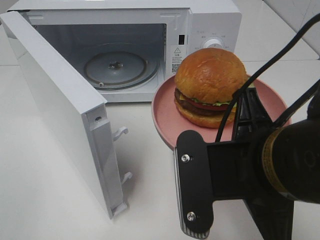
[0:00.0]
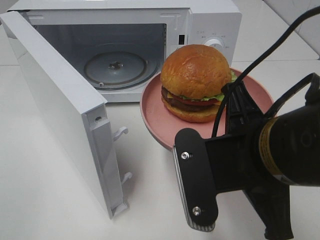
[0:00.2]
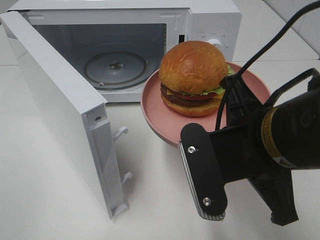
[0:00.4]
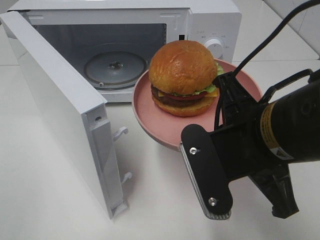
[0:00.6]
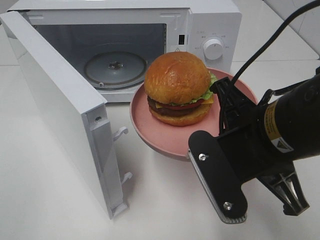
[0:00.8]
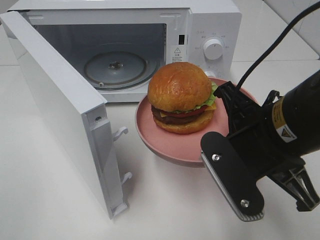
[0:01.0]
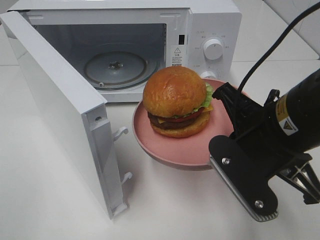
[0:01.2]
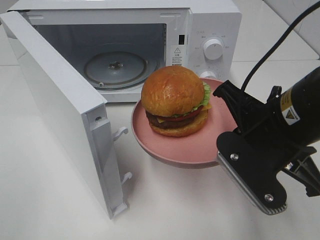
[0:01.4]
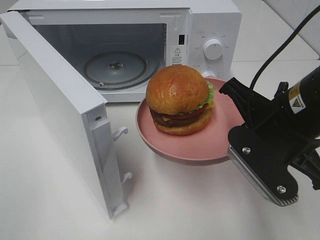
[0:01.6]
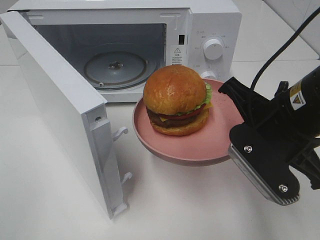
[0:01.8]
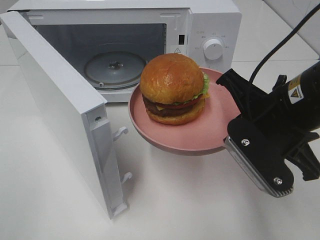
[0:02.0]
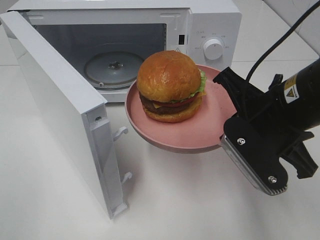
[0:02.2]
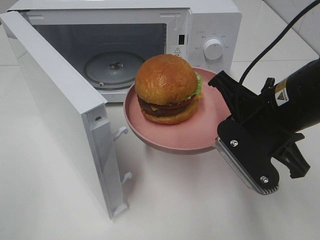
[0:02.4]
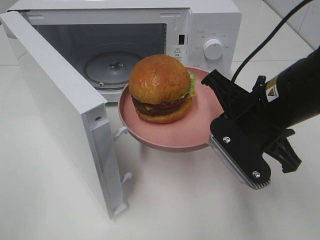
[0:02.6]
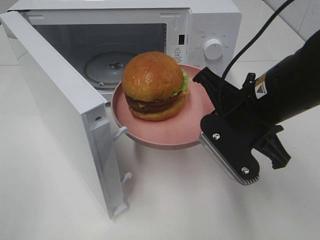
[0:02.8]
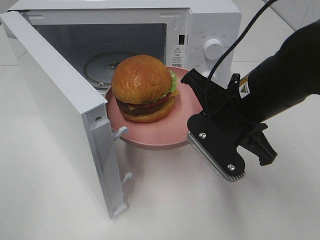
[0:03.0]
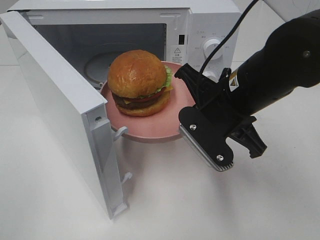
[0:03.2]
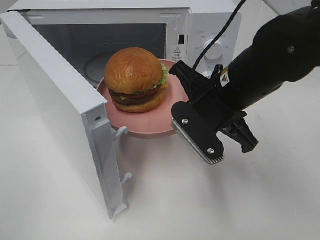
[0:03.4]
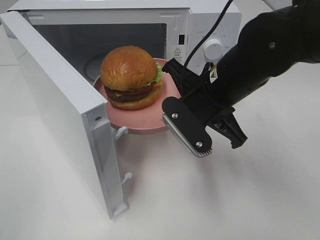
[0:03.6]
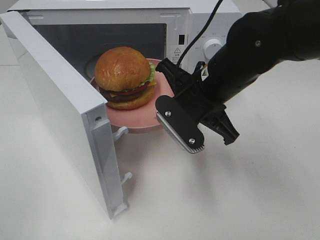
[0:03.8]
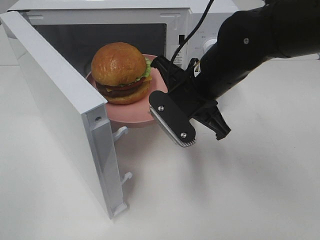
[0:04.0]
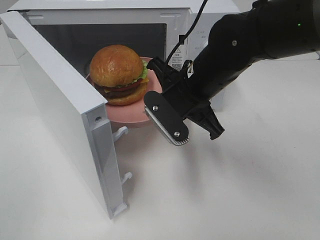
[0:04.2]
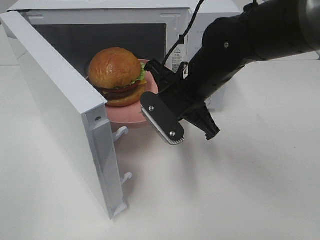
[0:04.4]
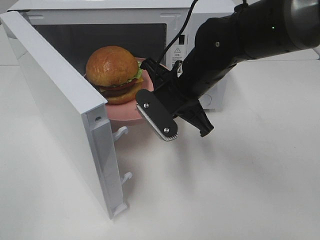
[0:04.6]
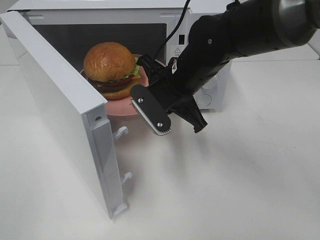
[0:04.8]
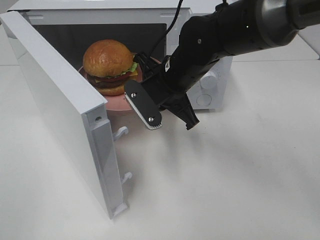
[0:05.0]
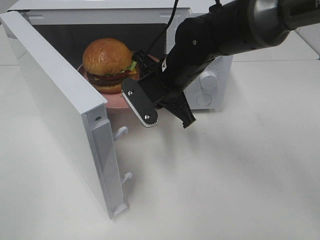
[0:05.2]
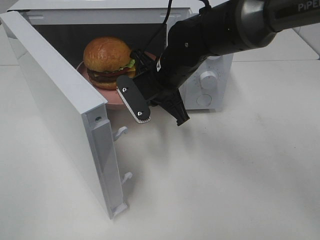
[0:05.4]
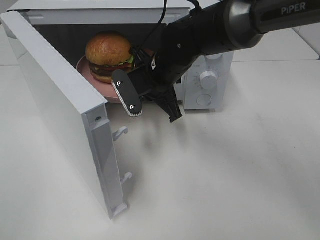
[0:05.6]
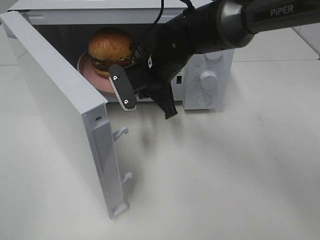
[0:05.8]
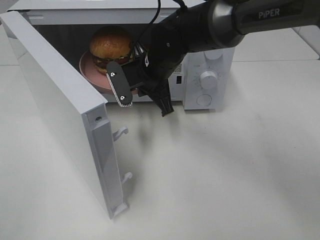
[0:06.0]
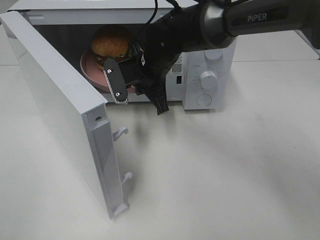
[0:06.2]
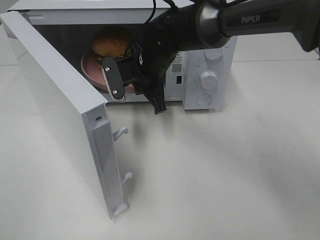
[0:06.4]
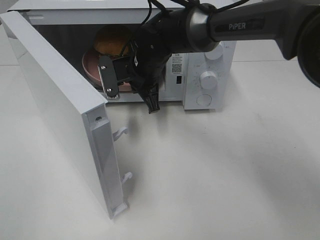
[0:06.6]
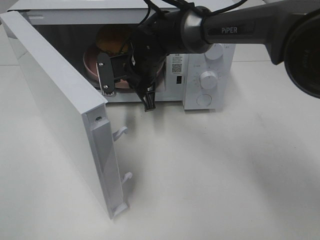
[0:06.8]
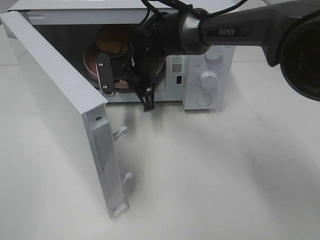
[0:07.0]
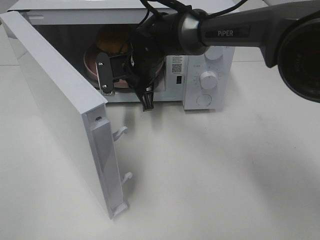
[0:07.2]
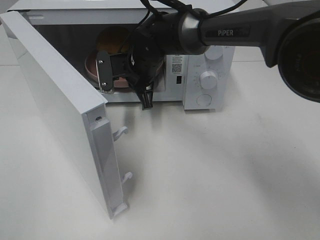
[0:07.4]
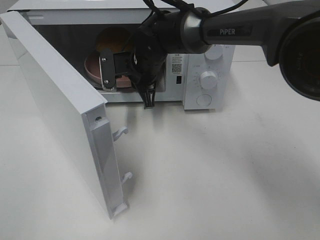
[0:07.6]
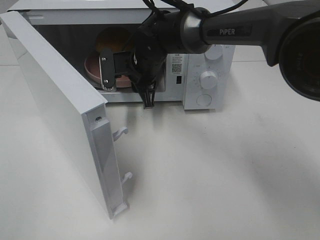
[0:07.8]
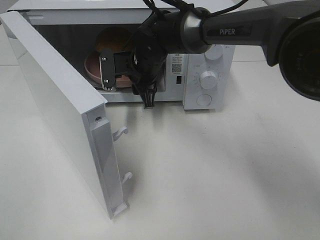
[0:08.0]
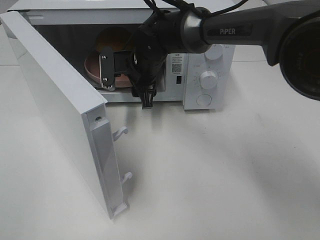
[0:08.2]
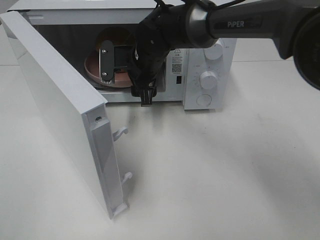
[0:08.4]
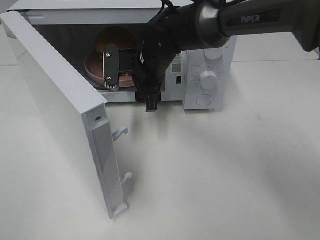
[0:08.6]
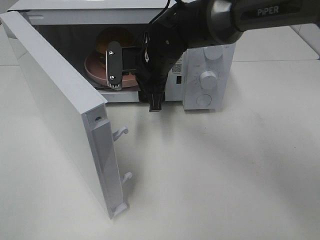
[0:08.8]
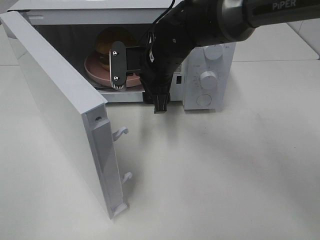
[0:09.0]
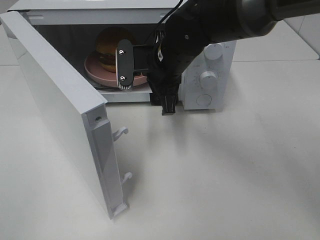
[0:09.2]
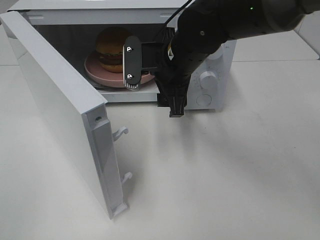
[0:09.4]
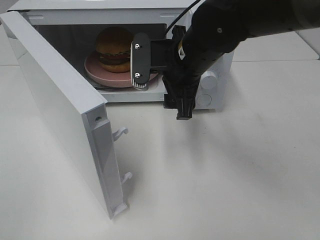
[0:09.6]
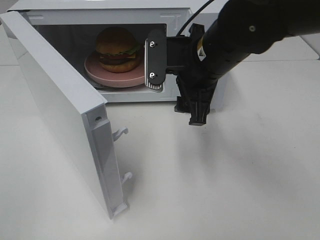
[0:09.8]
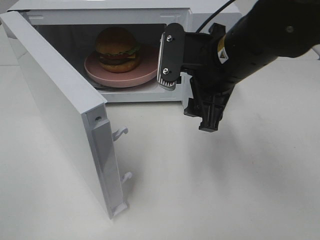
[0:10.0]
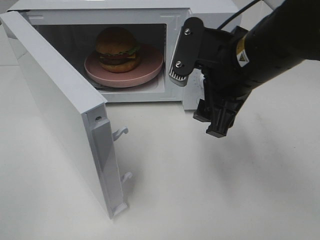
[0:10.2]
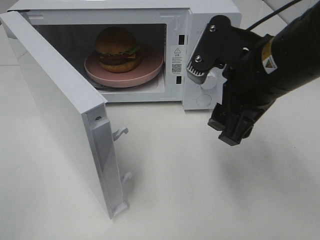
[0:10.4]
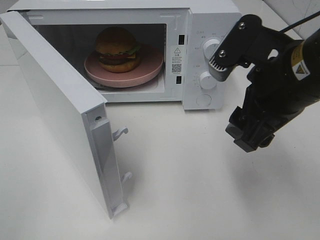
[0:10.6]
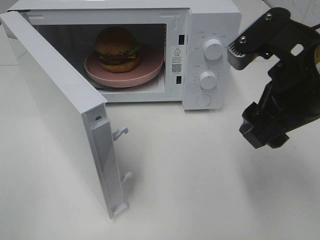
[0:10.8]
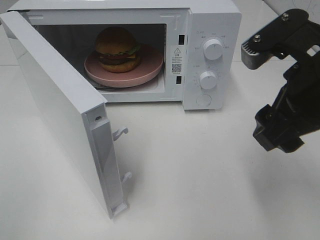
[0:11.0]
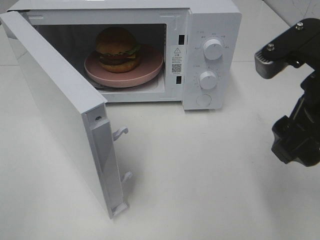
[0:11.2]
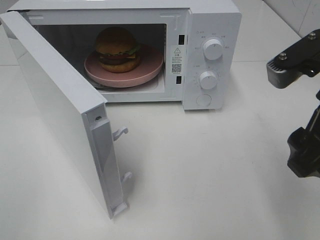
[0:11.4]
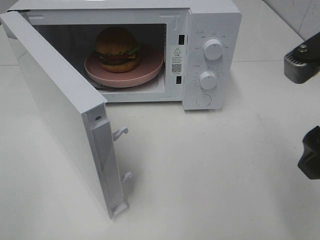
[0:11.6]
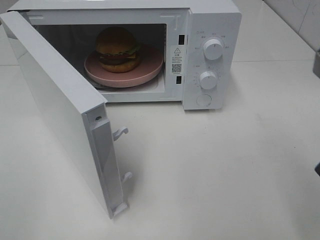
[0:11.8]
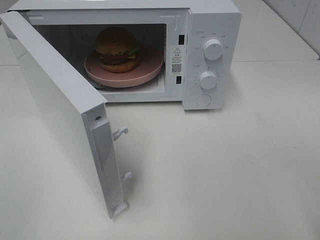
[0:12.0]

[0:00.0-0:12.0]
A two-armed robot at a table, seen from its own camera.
Task of the whole recording: Heat the burger.
Step, 0:00.0 to 0:08.4: Right hand: place the plate in the microwave.
0:00.0 to 0:01.6: The right gripper goes some 10 cm forward and to the right.
0:01.6 to 0:03.0: The right gripper shifts by roughly 5 cm.
0:03.0 to 0:04.4: The right gripper moves forward and to the left, some 10 cm.
0:04.4 to 0:06.0: The right gripper goes some 10 cm forward and to the left.
0:06.0 to 0:07.6: The grippers move only a little.
0:07.6 to 0:09.0: The right gripper ends up roughly 5 cm from where it was, and opens up.
0:09.0 to 0:10.4: The right gripper shifts about 20 cm backward, to the right and upward.
0:10.4 to 0:12.0: The right gripper travels backward and to the right by about 15 cm.

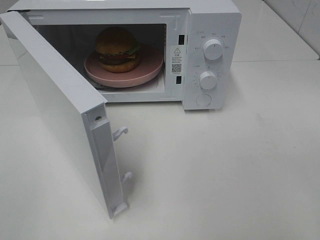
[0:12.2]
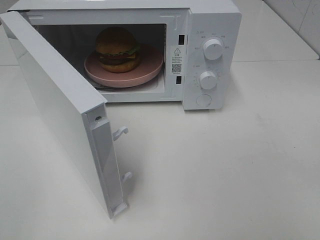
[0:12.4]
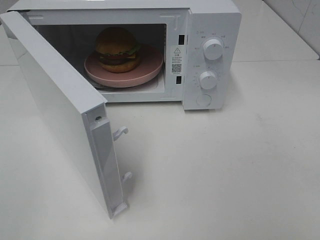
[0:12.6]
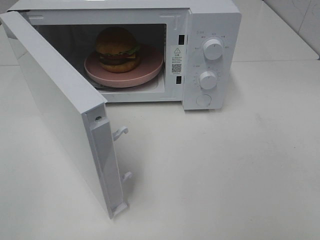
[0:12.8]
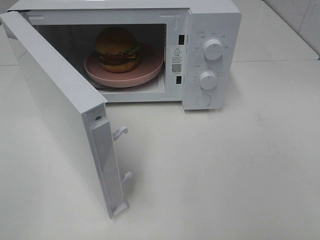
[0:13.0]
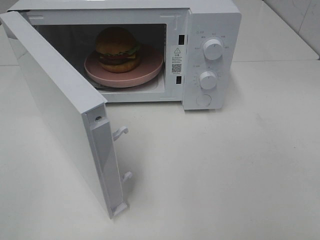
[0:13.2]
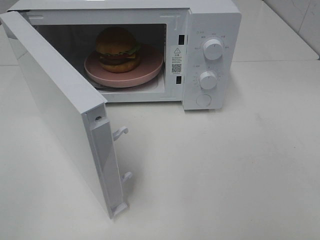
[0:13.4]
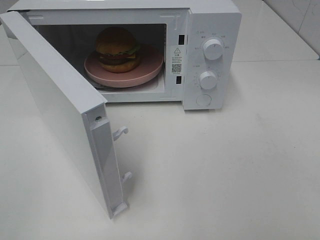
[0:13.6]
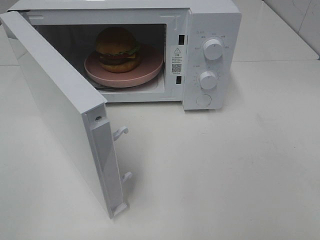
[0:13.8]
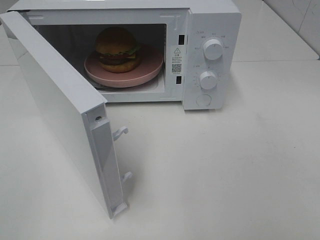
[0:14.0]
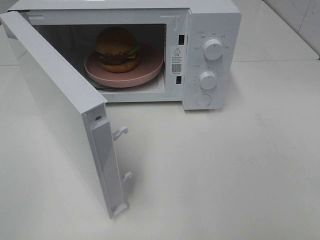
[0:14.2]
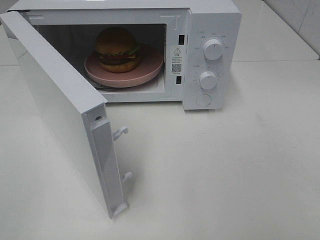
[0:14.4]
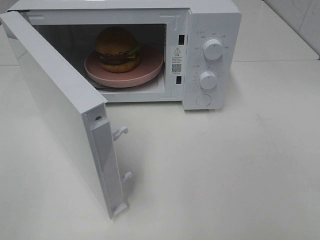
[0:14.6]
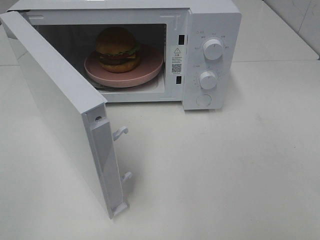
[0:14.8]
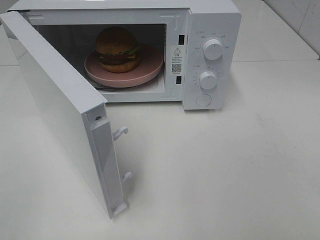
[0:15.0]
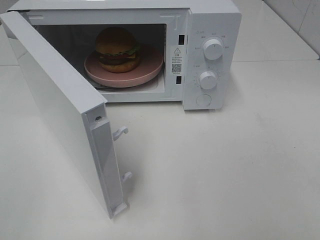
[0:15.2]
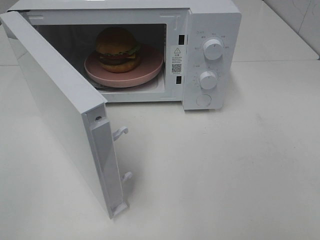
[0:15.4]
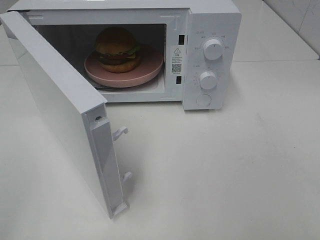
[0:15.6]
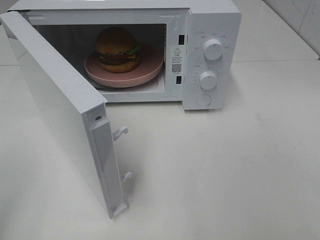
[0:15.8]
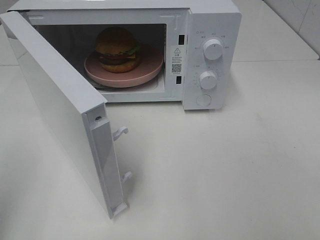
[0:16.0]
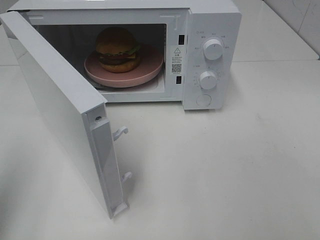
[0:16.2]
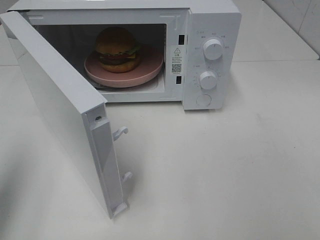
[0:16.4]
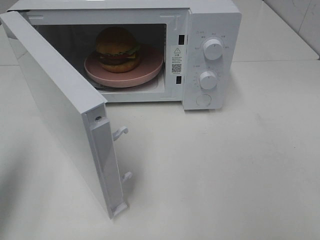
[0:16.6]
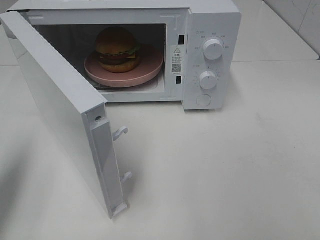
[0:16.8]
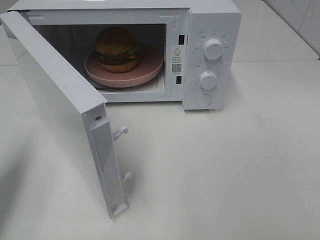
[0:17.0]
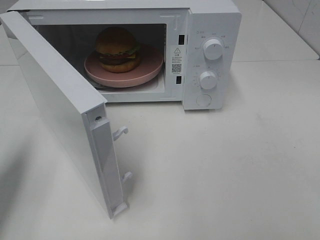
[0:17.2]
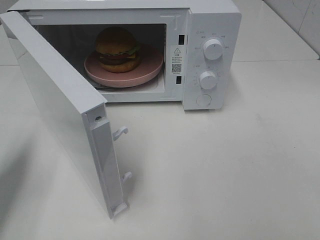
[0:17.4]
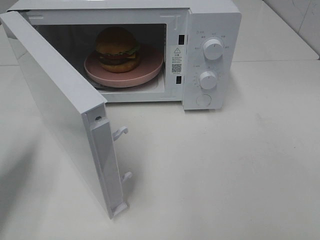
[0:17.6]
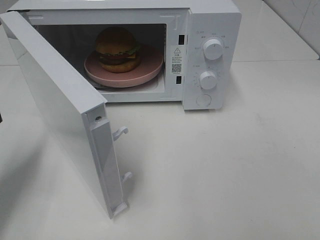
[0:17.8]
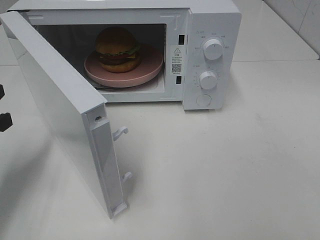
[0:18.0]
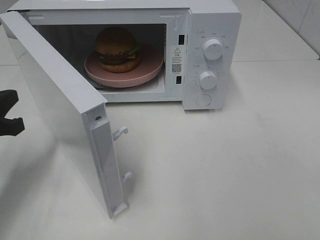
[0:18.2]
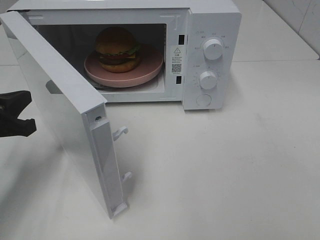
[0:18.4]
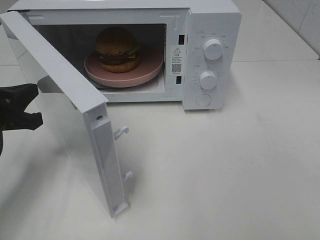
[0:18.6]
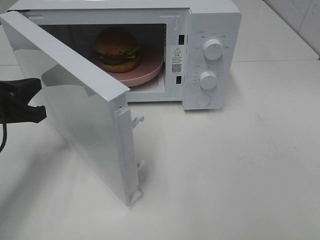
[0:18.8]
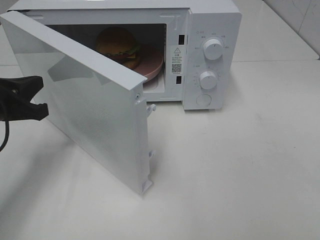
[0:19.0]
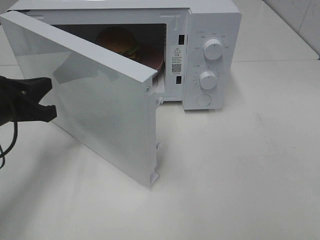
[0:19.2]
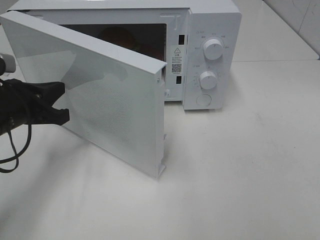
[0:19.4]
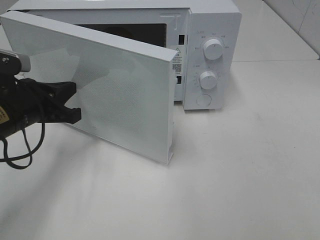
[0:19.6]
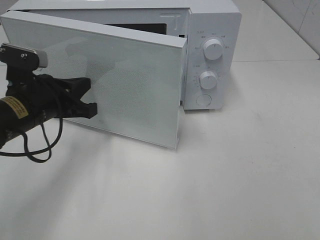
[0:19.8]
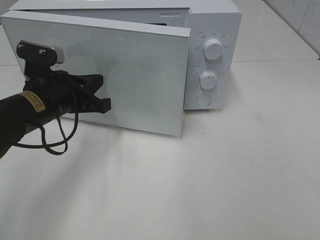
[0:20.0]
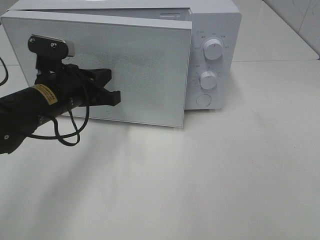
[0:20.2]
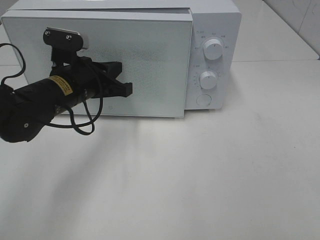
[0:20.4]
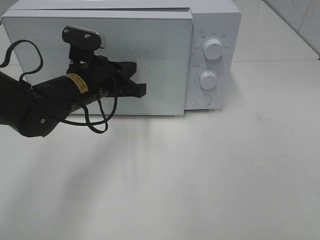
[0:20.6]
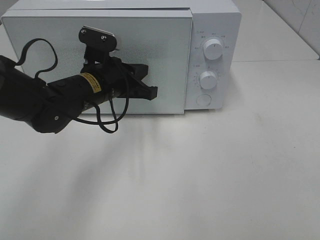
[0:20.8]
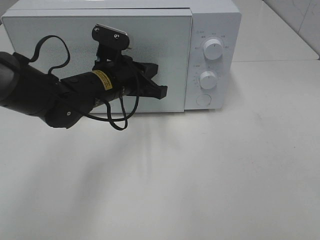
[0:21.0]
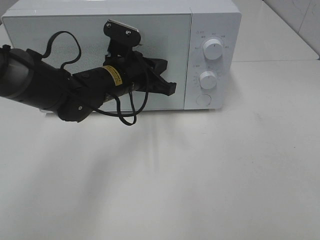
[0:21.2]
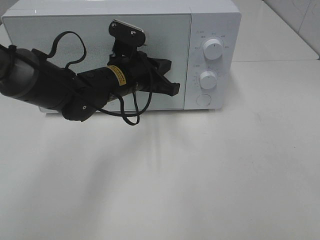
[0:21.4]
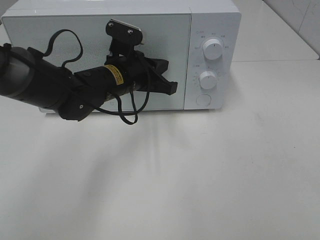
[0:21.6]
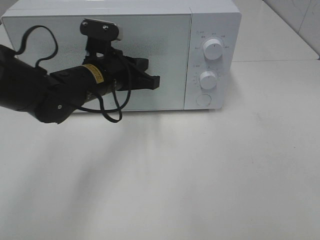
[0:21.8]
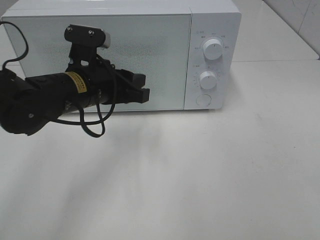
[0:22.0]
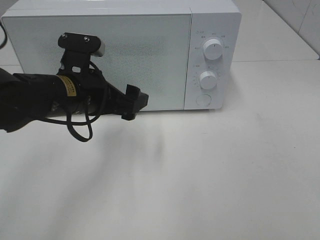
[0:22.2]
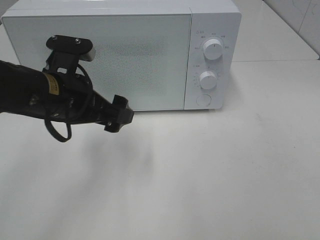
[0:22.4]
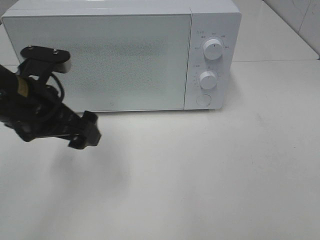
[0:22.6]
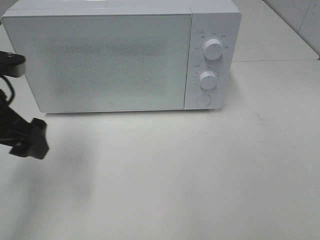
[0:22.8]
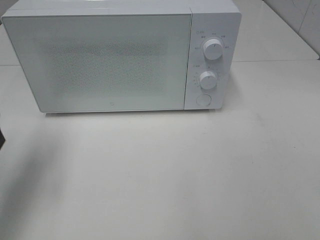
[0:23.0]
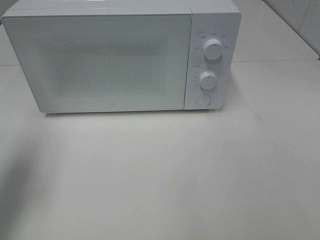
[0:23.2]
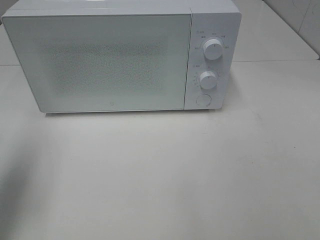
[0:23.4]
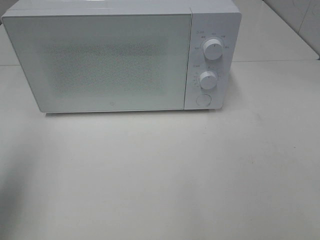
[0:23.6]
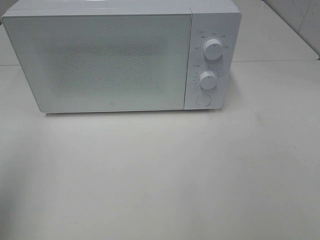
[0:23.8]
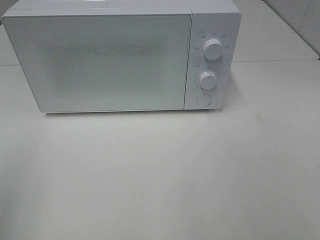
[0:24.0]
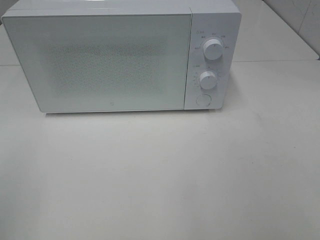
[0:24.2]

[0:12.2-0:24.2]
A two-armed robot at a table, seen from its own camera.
Task of the whole recording: Heat the burger.
Step, 0:12.2 to 0:22.0: Left hand: close the microwave door.
0:13.8 to 0:15.2: Both grippers stay about where they are.
0:15.2 to 0:16.6: The left gripper moves forward, about 15 cm, and closes up.
0:16.6 to 0:18.2: The left gripper shifts some 15 cm downward and forward.
0:18.2 to 0:19.8: The left gripper goes approximately 10 cm to the right and forward.
0:19.8 to 0:21.2: The left gripper travels to the right and forward by about 15 cm.
0:21.2 to 0:22.6: The left gripper shifts approximately 15 cm to the left, backward and upward, and opens up.
0:22.6 to 0:24.2: The left gripper moves backward, to the left and upward, roughly 25 cm.
